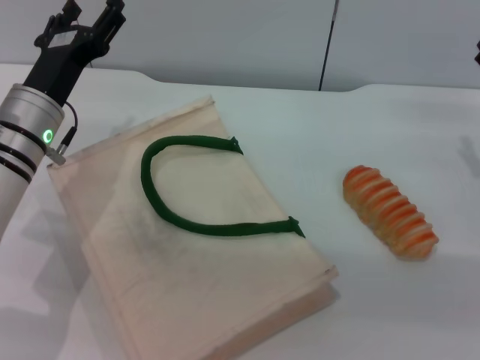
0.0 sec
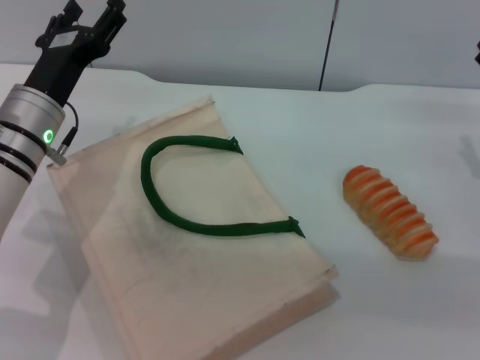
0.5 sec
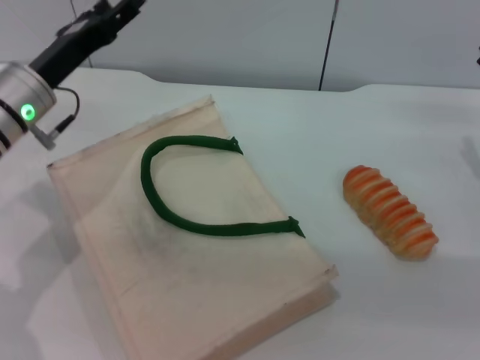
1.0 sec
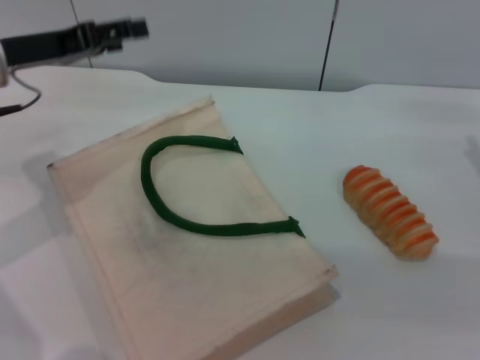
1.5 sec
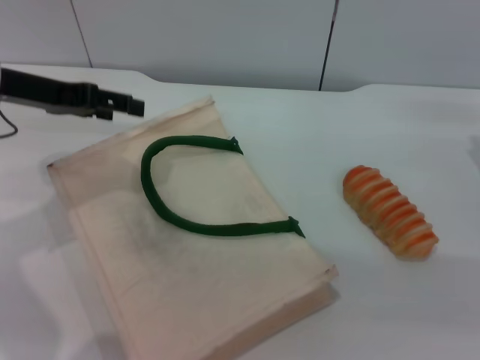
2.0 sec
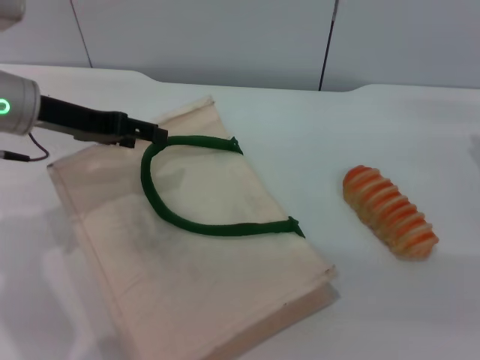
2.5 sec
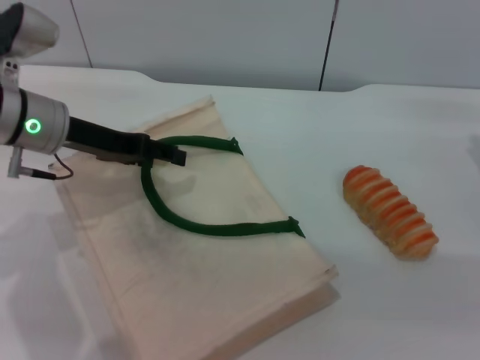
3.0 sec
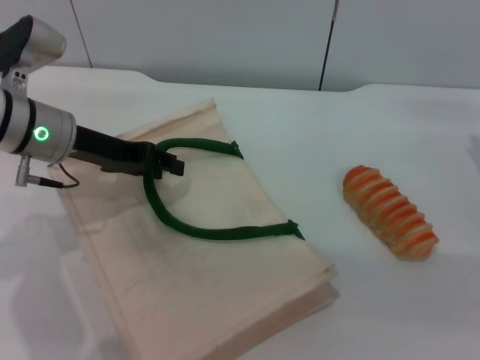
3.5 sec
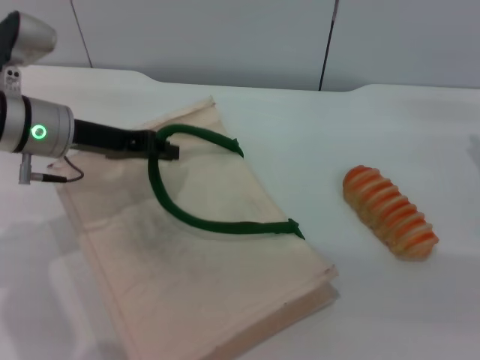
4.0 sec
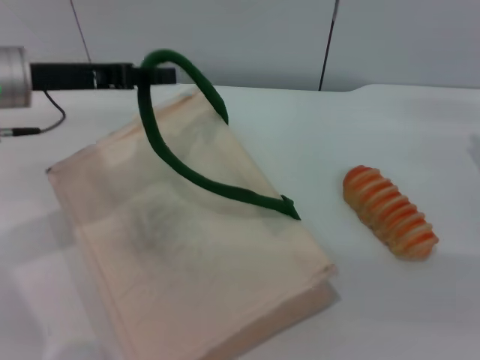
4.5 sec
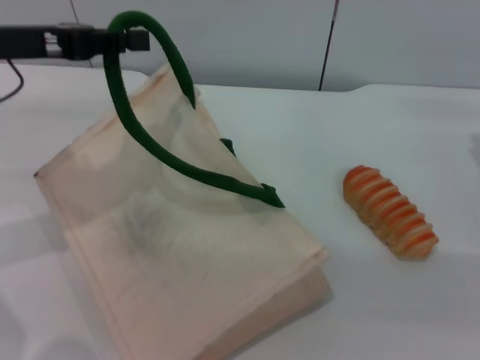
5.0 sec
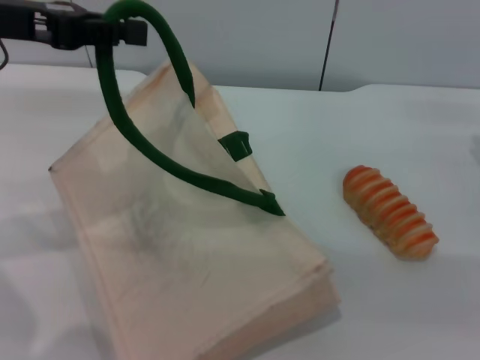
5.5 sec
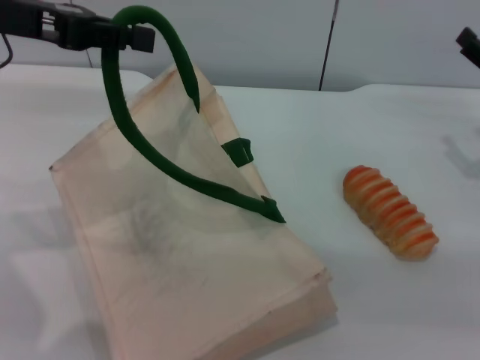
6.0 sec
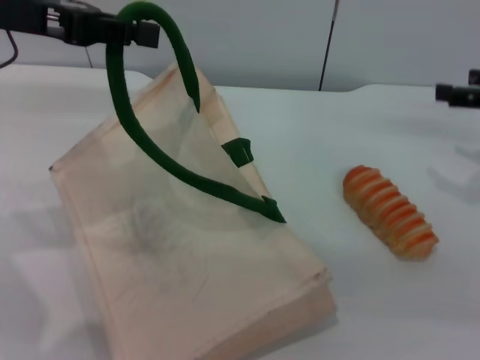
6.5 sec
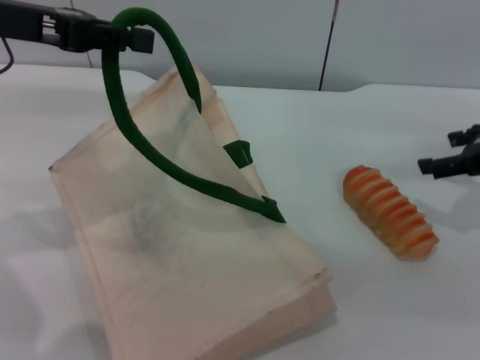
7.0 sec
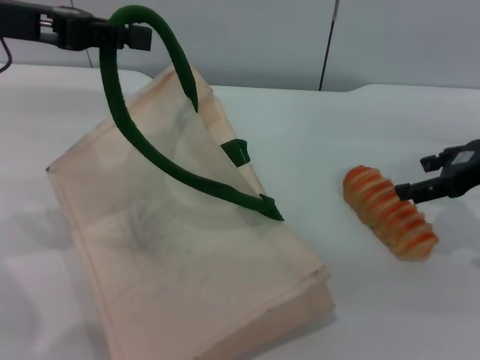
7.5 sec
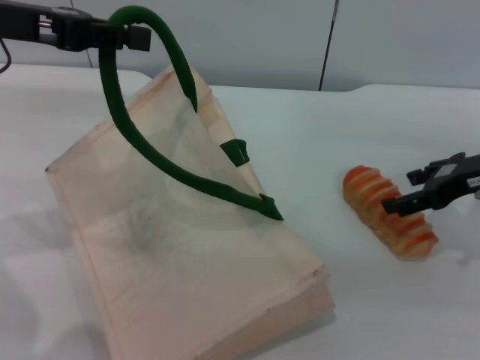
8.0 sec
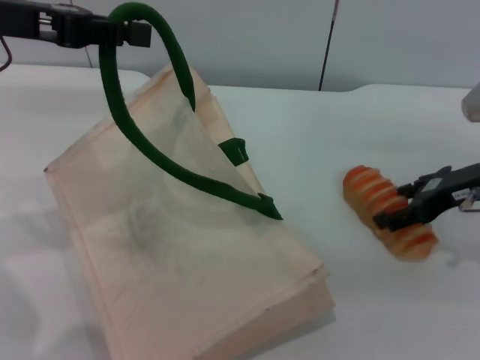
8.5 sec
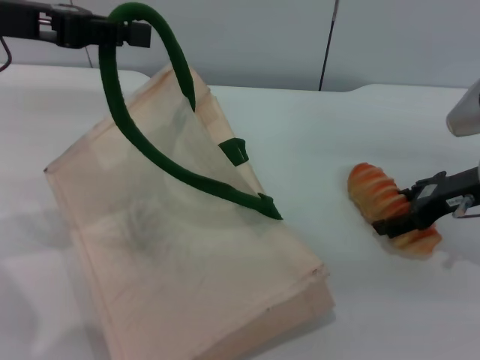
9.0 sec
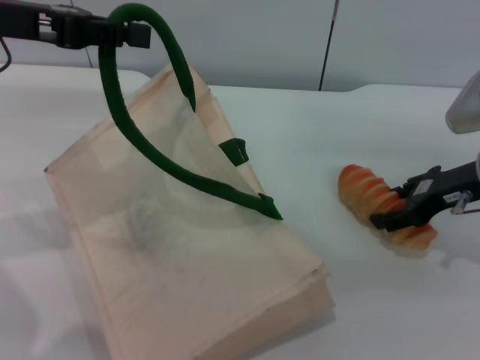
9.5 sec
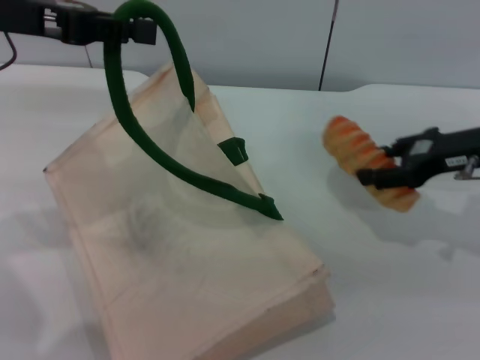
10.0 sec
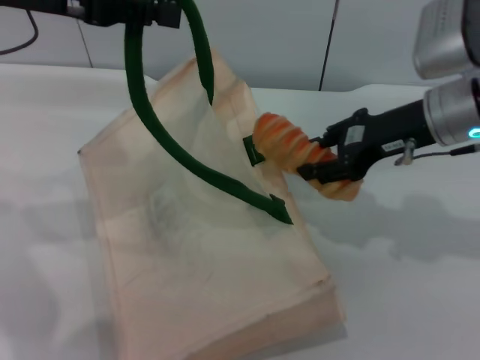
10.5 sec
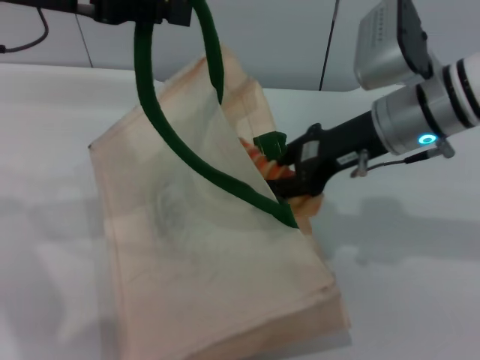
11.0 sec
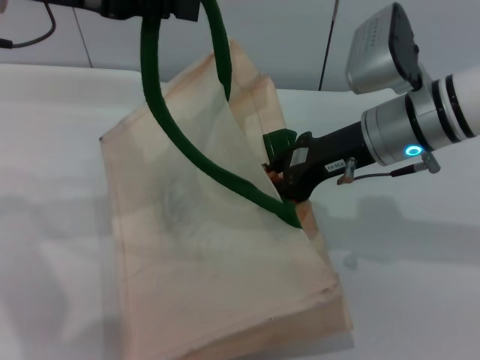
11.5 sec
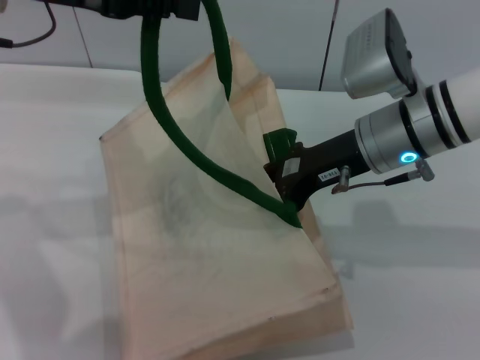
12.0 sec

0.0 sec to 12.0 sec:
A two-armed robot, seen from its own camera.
Task of the whole recording: pick up the bread from the table and place it in the white handbag.
Step, 0.0 sec to 5.5 sec: Lift the woven bag with the left gripper to open it.
Step, 6.0 sec to 10.0 sec: Pick up the bread with the right gripper.
0.0 sec to 2.0 sec: The left gripper moves upward and to the left, some 10 cm.
2.0 sec to 4.0 sec: The left gripper moves downward, approximately 5 cm, and closes up.
4.0 sec to 6.0 sec: The left gripper heads upward, covering approximately 15 cm.
6.0 sec to 8.0 sec: The right gripper shifts by approximately 5 cm.
8.0 sec to 10.0 sec: The right gripper closes.
10.0 sec to 12.0 sec: The right gripper travels to the left by roughly 15 cm, and closes up.

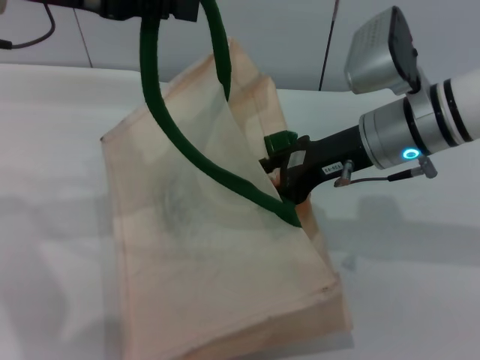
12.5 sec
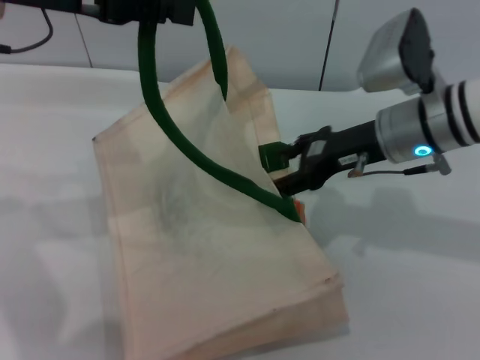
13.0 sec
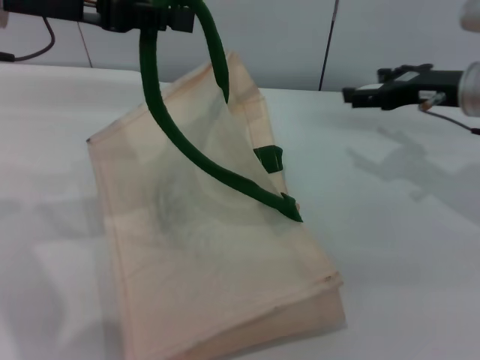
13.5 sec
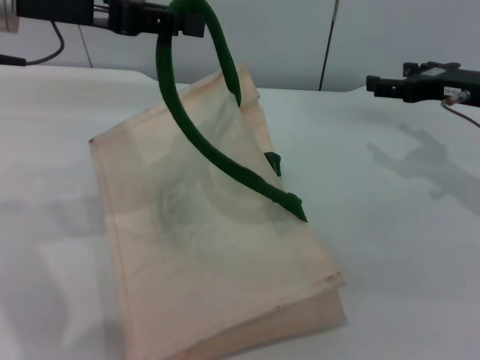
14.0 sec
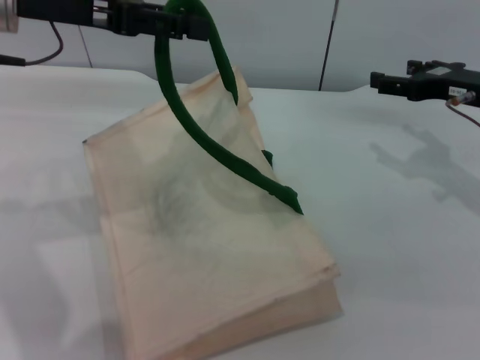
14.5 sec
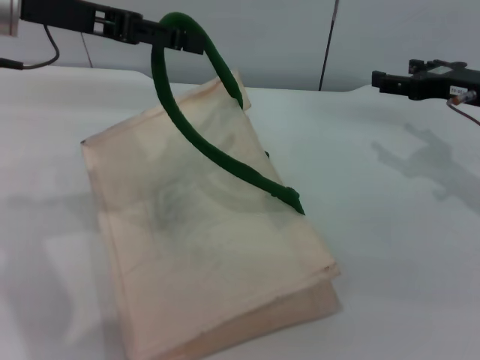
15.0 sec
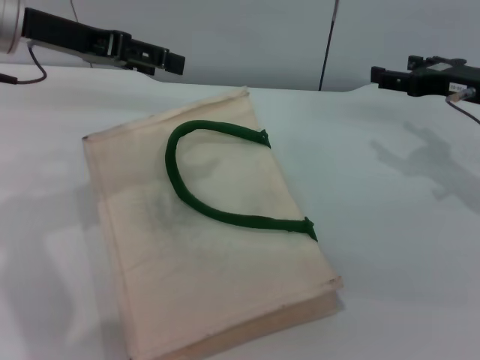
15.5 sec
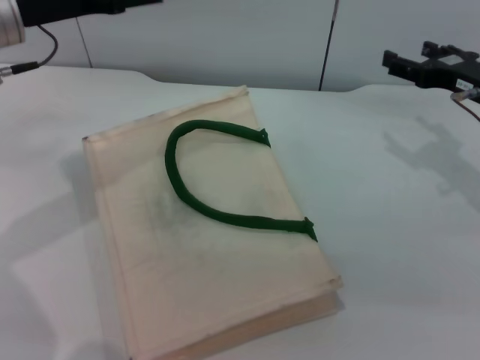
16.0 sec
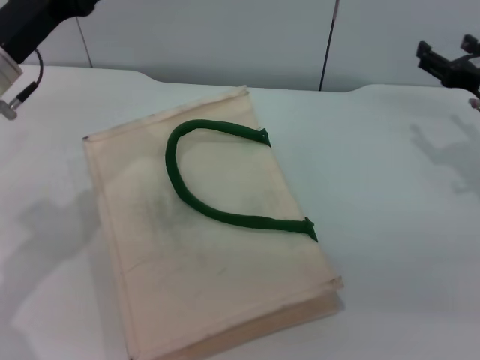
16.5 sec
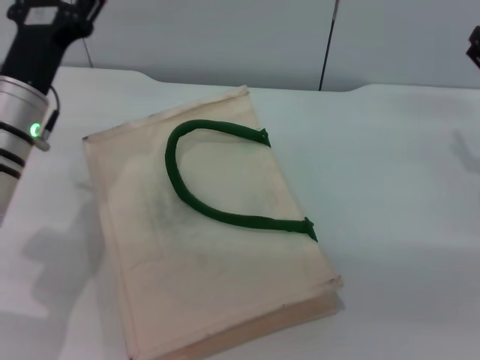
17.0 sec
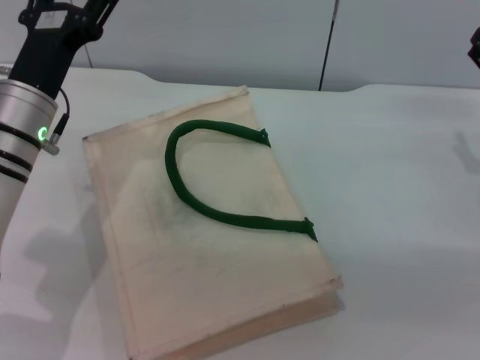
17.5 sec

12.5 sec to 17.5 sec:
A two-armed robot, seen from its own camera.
Task of the whole recording: pick up the bread from the table and place it in the white handbag.
Step, 13.5 sec to 15.5 sec: Lower the woven bag with the left gripper to close it.
12.5 sec to 15.0 sec: The left gripper opens. The right gripper moves to the right, roughly 15 cm, and opens its fingers.
15.0 sec to 17.5 sec: The left gripper is displaced downward by roughly 15 cm; the right gripper shifts about 5 cm downward and backward.
